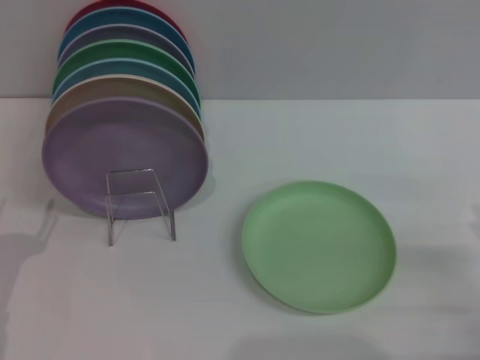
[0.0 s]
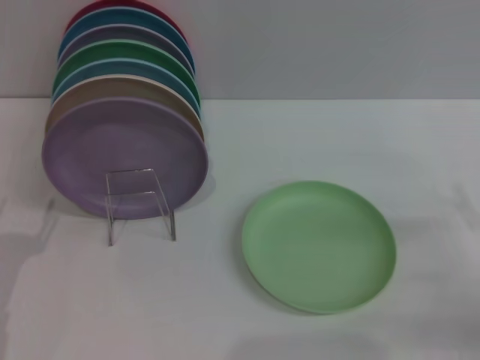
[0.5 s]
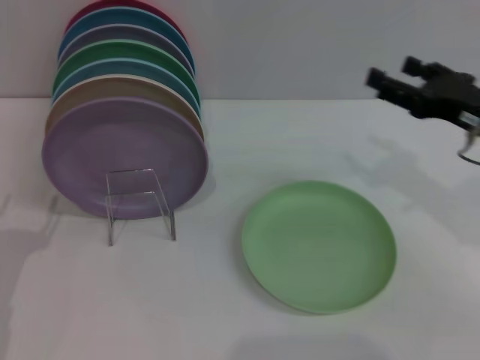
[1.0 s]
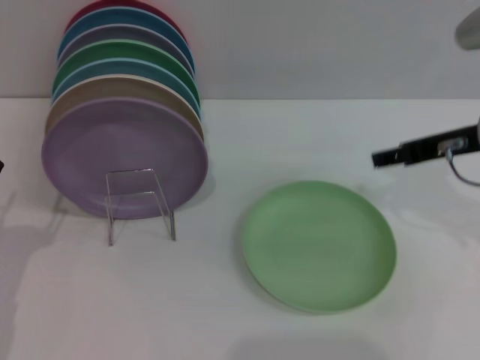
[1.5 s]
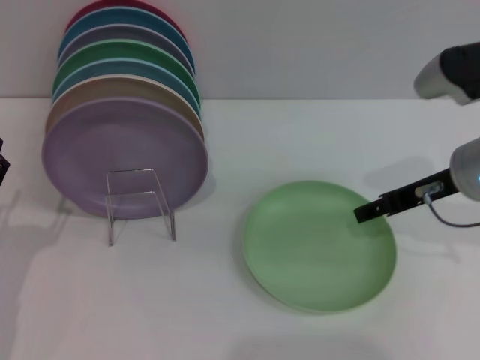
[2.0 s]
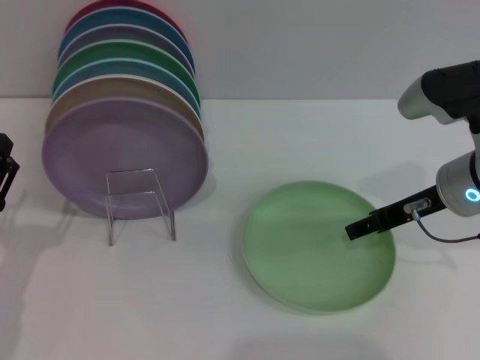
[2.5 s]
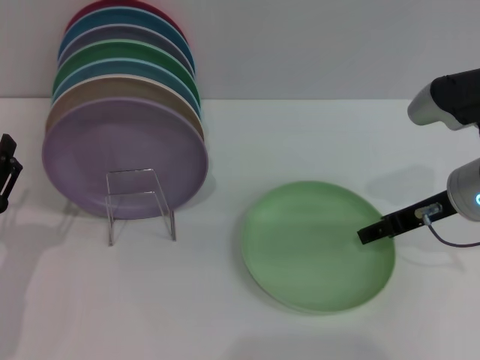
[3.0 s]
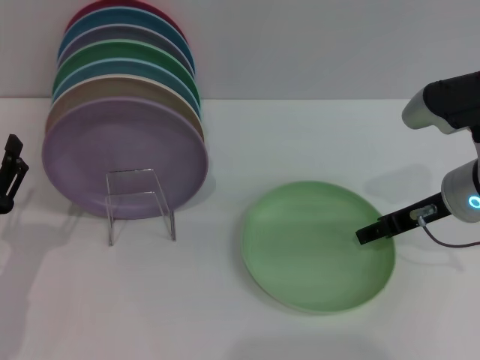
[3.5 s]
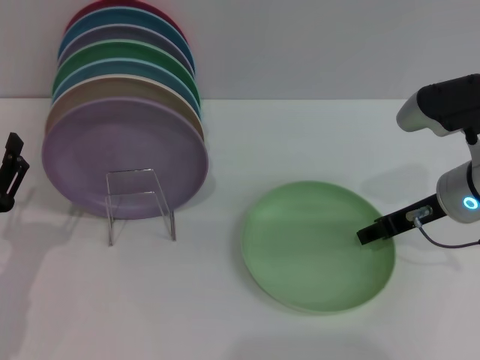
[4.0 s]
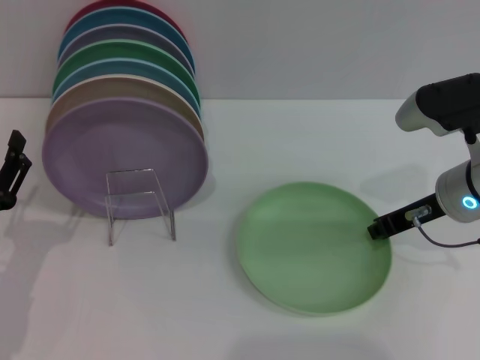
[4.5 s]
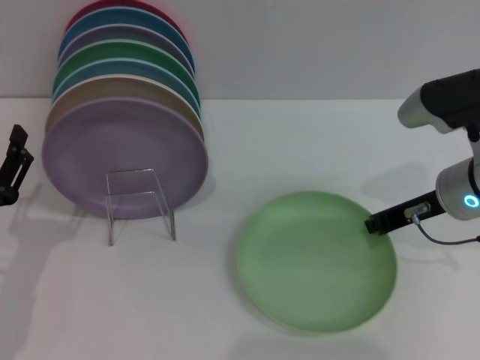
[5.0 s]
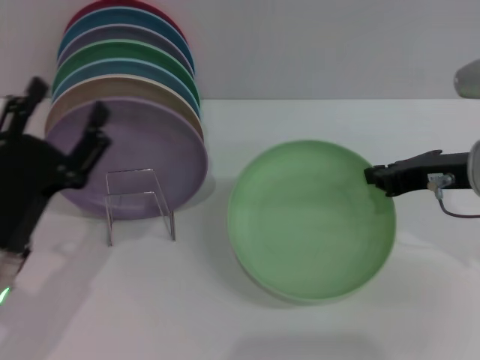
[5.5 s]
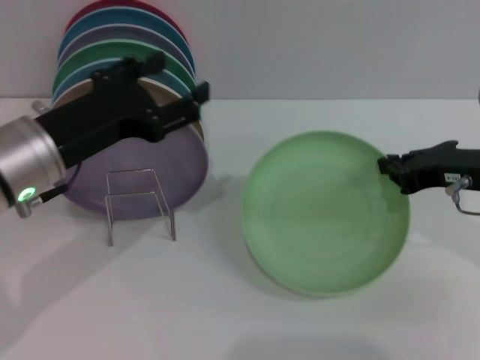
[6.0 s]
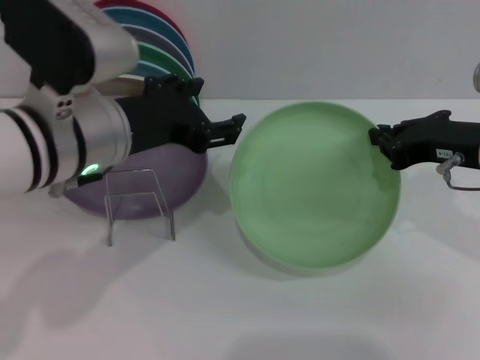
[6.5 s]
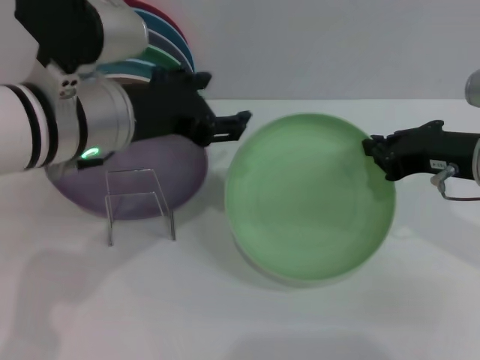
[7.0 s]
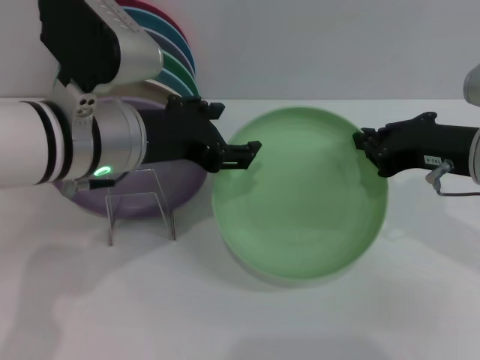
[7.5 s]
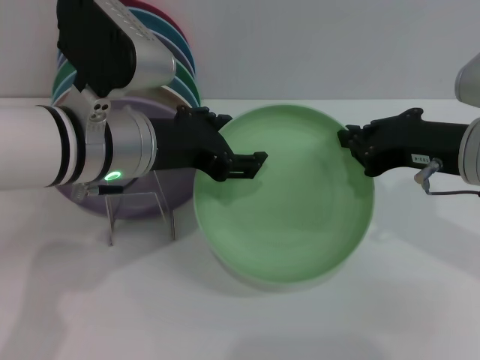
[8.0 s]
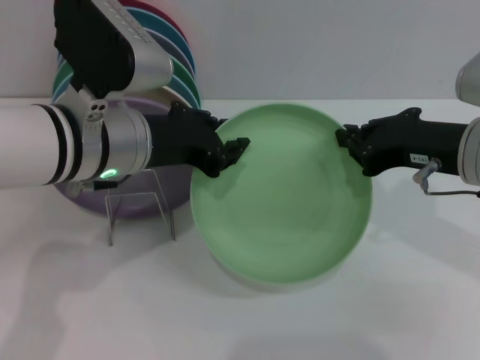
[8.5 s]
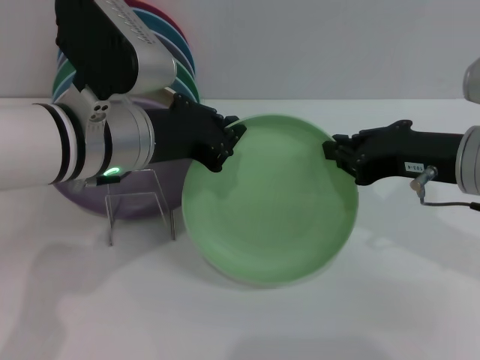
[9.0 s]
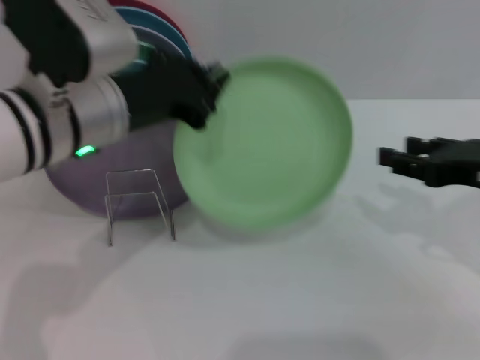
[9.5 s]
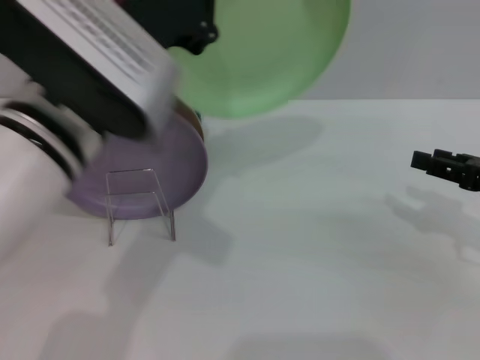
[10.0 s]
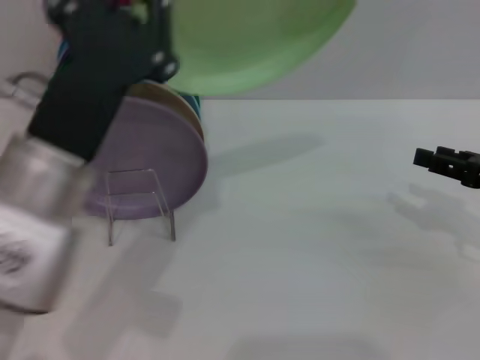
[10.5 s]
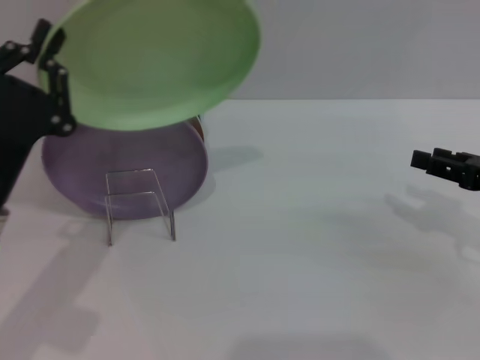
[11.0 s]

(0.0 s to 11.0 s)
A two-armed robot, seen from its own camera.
Task of the whole recording: Grip the plate with one hand, pass it to the other, then set it on the shelf.
Step, 0.0 s - 5.5 s: Pick up the plate with the right gripper.
Step, 6.5 s - 10.0 s: Pass the plate from the right gripper to the left gripper.
0.0 s - 2.0 s: The right gripper shifts roughly 25 cm forward, upward and to the left.
2.0 s - 3.5 s: The grippers stay close to where they were, moving slightly.
3.5 s - 5.5 s: The right gripper closes its fingers; the left gripper heads to the right, covering approximately 5 cm.
5.5 s - 7.5 s: The left gripper travels upward, to the right and forward by about 15 cm.
7.5 s - 9.0 s: The left gripper closes its fingers.
9.0 s - 11.0 s: The left gripper travels to the left, downward and backward by about 15 cm, while the right gripper heads to the right and downward, covering some 15 cm, and opens.

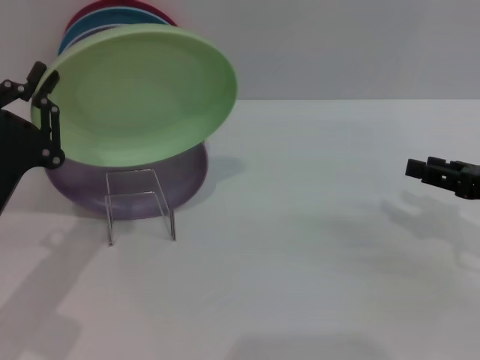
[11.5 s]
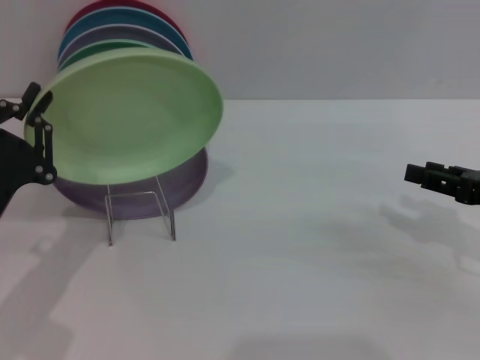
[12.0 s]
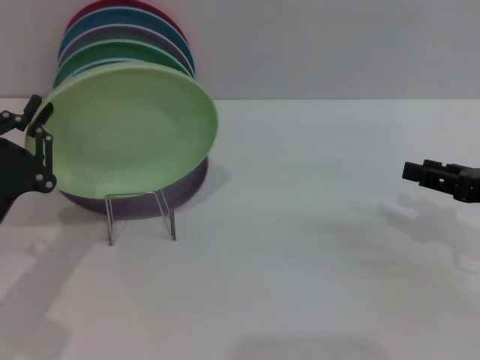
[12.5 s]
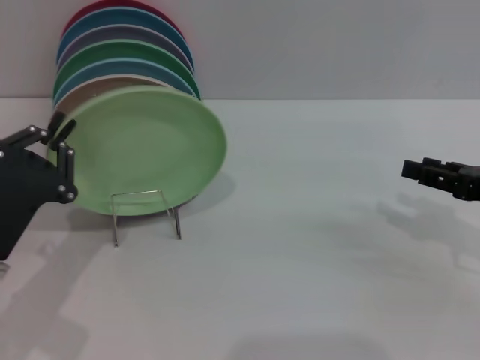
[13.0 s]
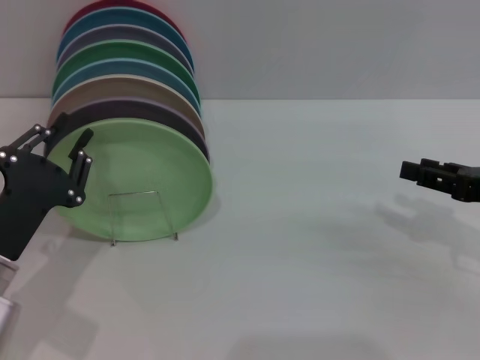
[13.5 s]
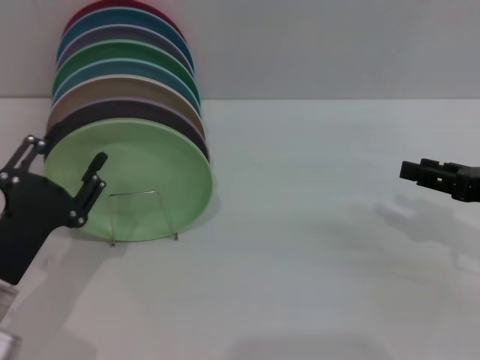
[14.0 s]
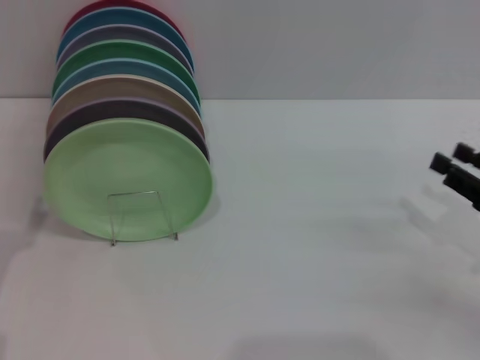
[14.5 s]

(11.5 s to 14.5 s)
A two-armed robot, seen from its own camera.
Task of the whole recording: Grip the plate with one hand, pass it to the other, then set it on the shelf.
Step, 11.5 s - 13.5 s: Place the plate on the shelf with the left gripper.
11.5 s - 13.0 s: The grippers make only small movements.
13.0 s - 14.5 s: The right gripper changes place by some 5 cm, while the left gripper shifts some 5 cm to the left, and opens its fingers.

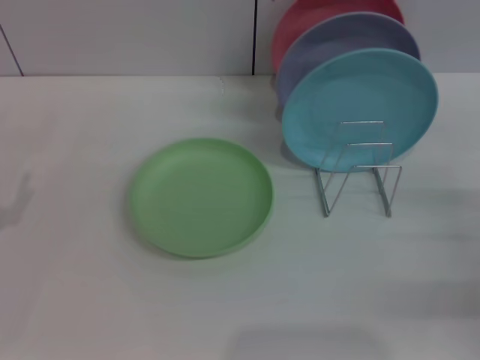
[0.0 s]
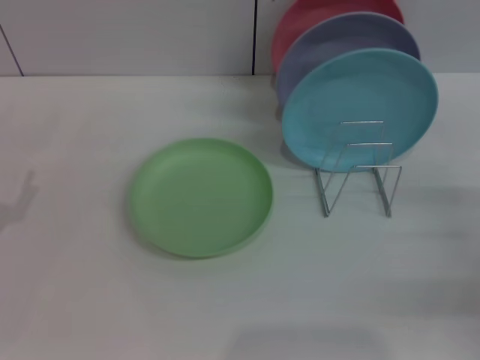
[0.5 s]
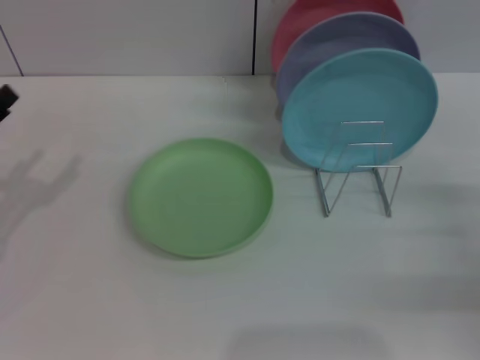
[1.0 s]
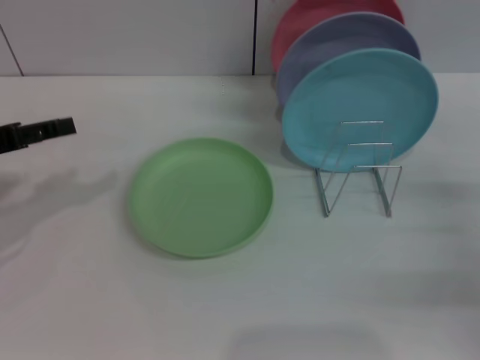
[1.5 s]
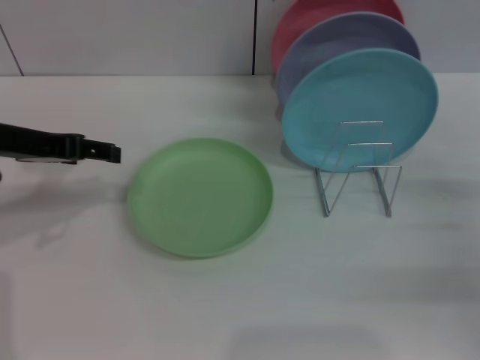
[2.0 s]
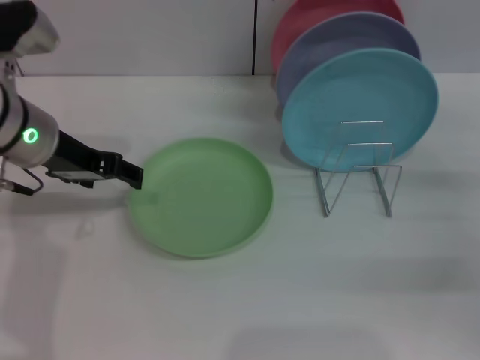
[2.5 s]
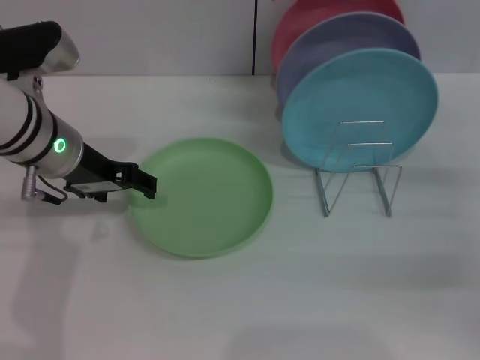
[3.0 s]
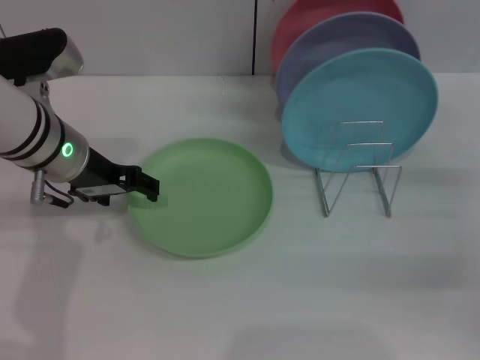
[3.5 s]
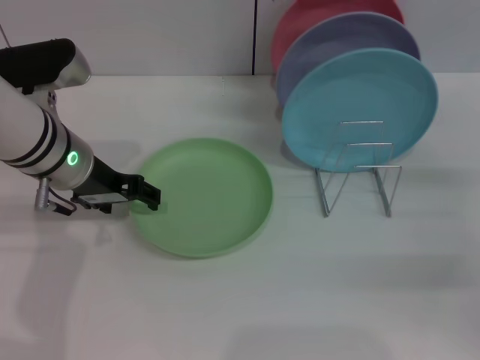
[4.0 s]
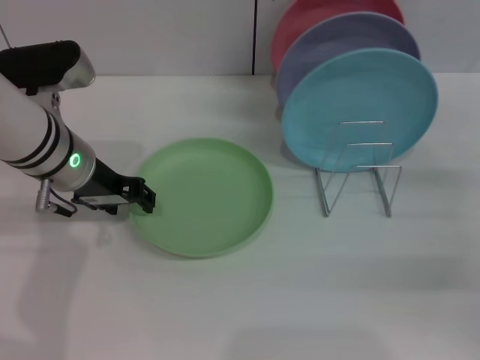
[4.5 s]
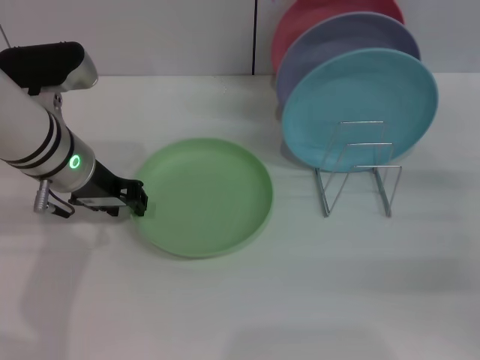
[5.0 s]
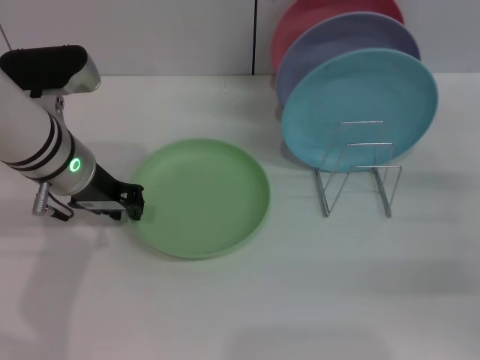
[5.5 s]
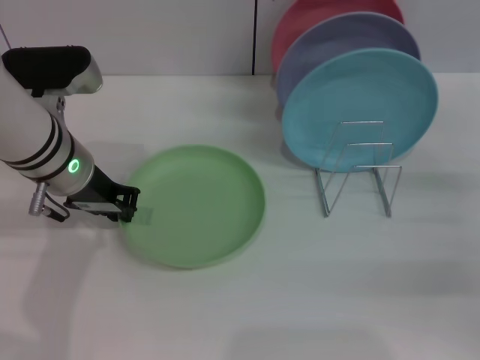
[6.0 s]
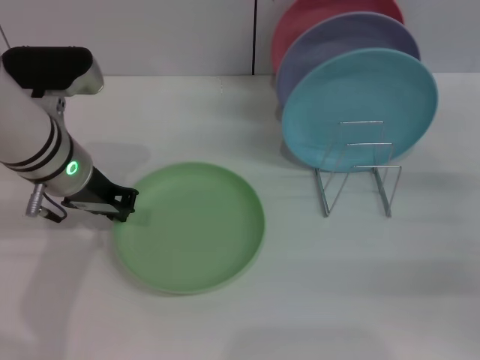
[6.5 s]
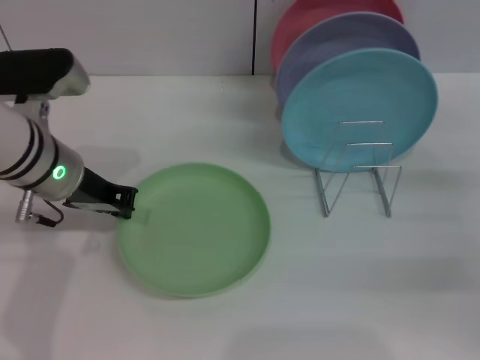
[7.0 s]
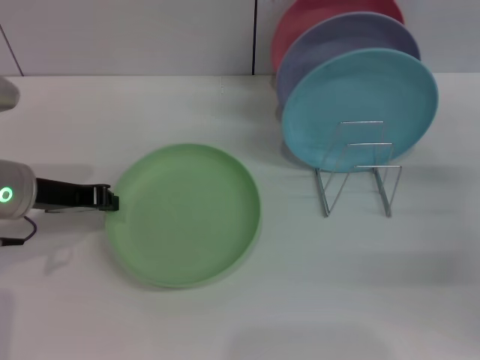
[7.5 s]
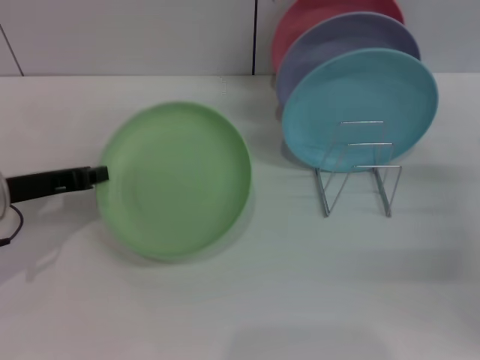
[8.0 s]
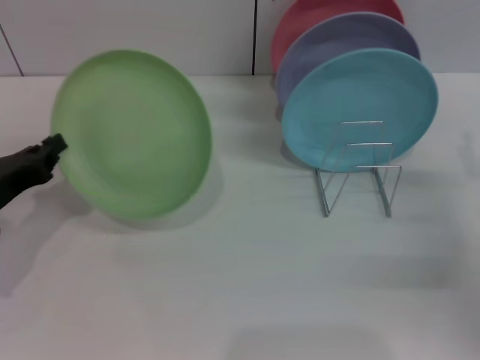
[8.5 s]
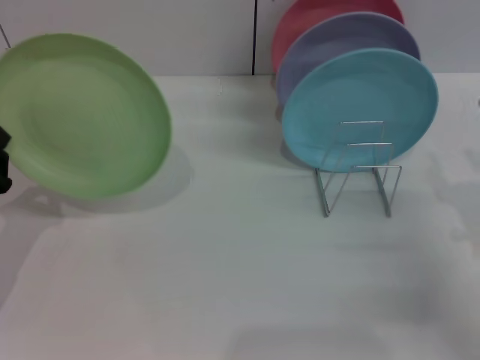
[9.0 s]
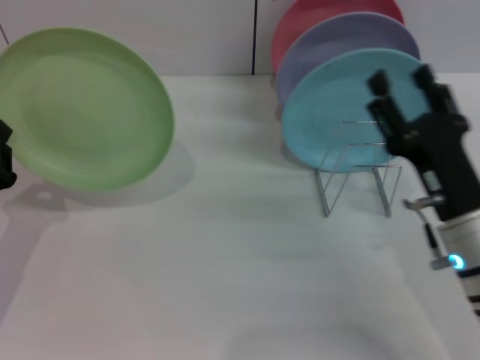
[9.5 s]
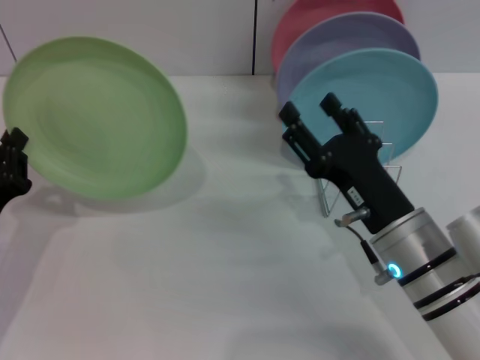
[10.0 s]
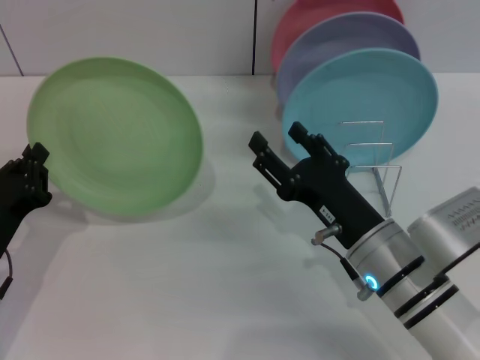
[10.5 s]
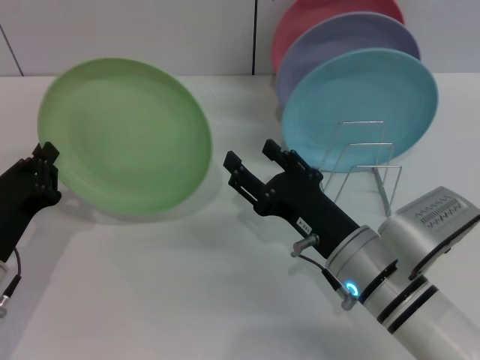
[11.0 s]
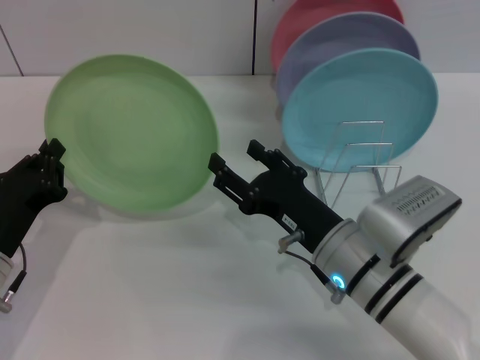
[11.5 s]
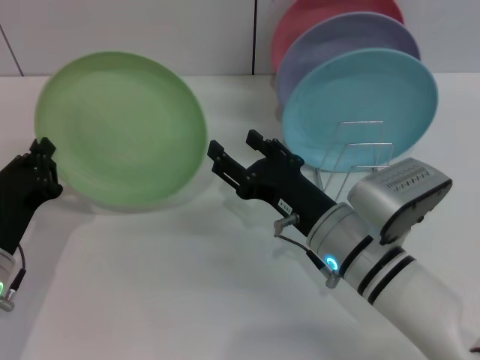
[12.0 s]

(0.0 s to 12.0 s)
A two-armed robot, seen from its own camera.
Task of the whole recording: Grip the plate with one hand, pass it to the other, then set it on the shelf.
Step, 0.0 s - 8.5 s: Pick up the plate with the left gripper.
0.0 s - 2.0 s: The left gripper travels upward, forward and to the right by roughly 20 cm.
2.0 s - 4.0 s: The left gripper heads to the right, covering roughly 10 cm.
4.0 s - 6.0 s: The left gripper closes its fingers.
6.0 s - 8.0 s: The left gripper heads to the left and backward, covering about 10 cm.
8.0 s - 10.0 s: The right gripper shifts some 20 cm to the left. The left gripper moves downward and backward, roughly 10 cm.
10.0 s - 12.0 s: The right gripper changes place by about 5 cm.
